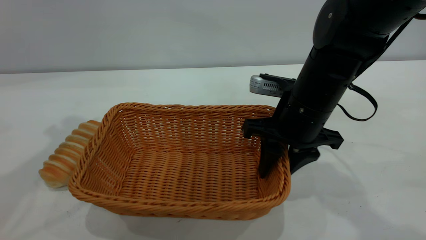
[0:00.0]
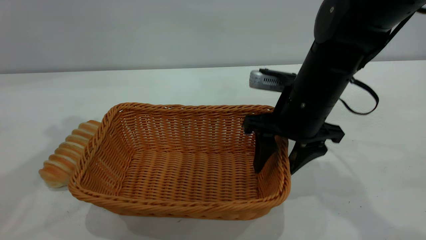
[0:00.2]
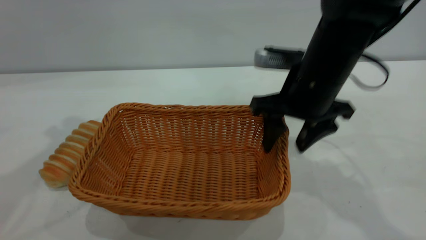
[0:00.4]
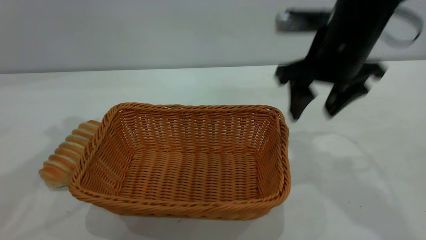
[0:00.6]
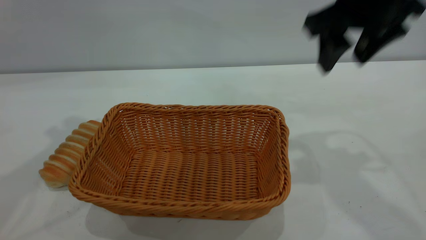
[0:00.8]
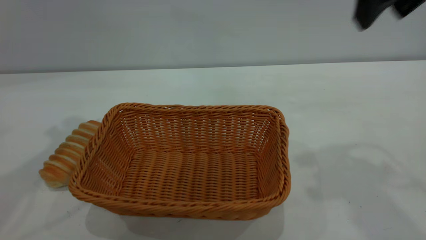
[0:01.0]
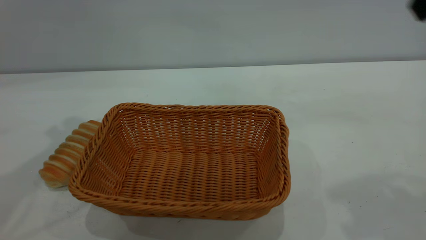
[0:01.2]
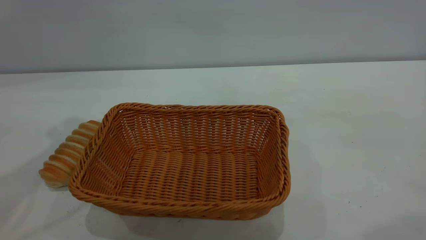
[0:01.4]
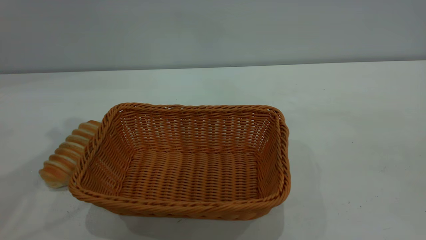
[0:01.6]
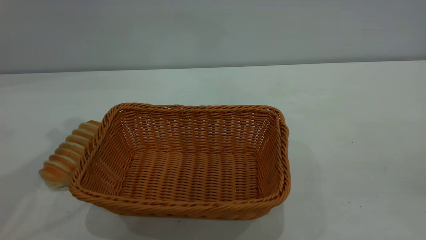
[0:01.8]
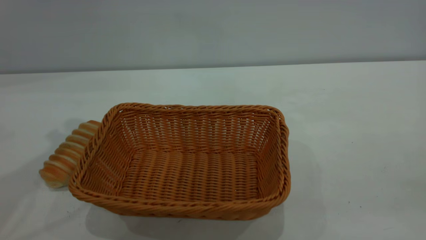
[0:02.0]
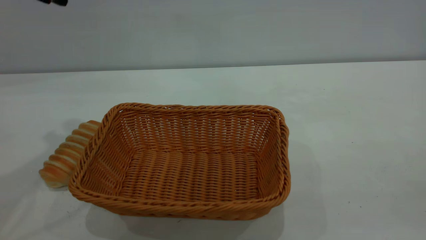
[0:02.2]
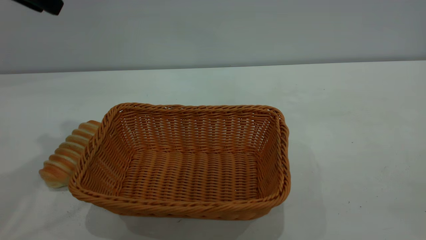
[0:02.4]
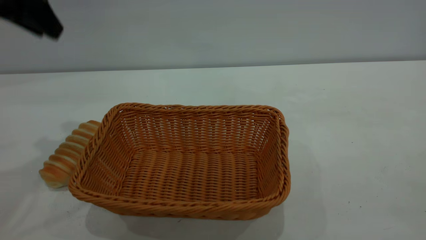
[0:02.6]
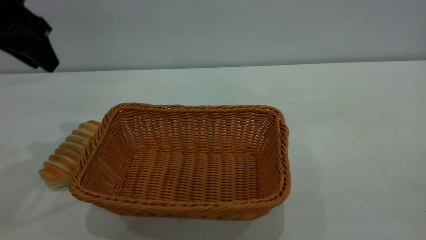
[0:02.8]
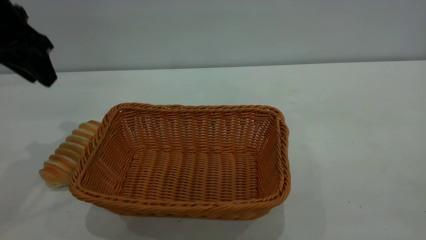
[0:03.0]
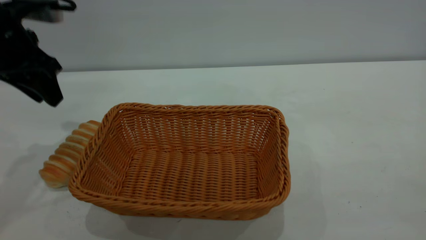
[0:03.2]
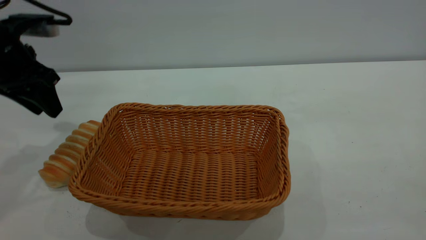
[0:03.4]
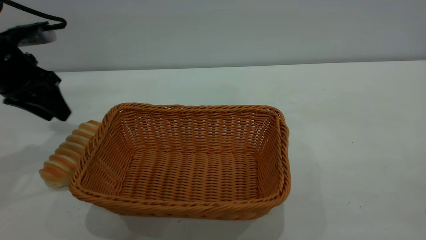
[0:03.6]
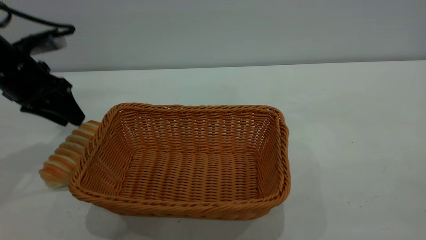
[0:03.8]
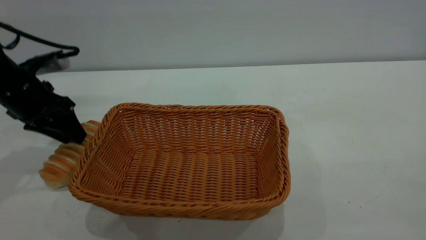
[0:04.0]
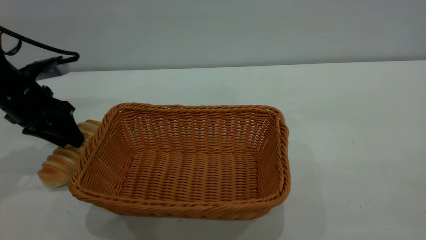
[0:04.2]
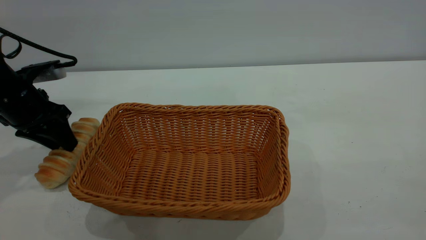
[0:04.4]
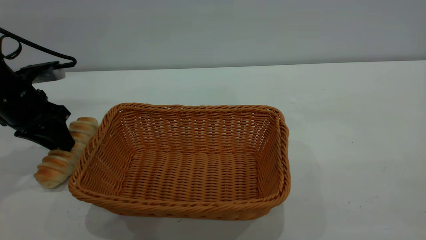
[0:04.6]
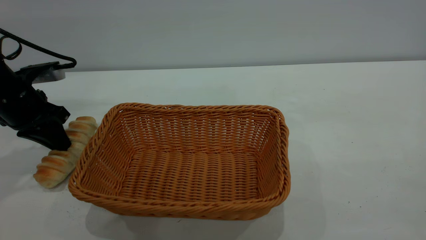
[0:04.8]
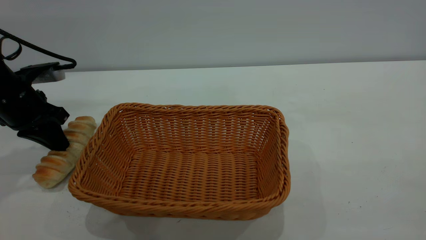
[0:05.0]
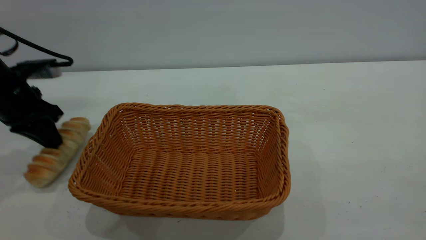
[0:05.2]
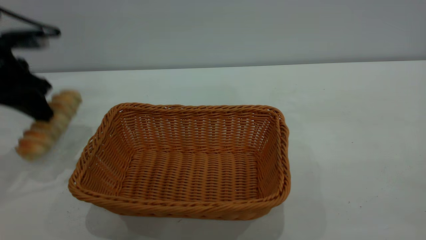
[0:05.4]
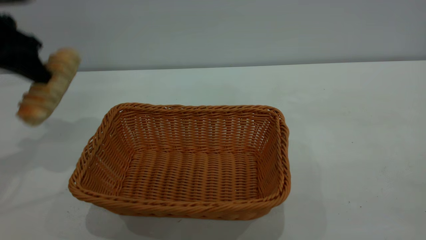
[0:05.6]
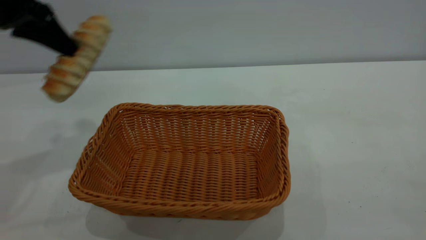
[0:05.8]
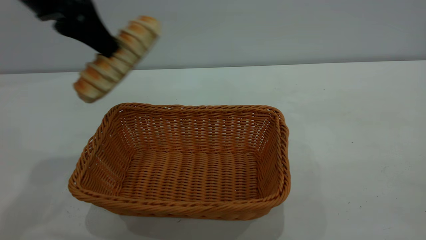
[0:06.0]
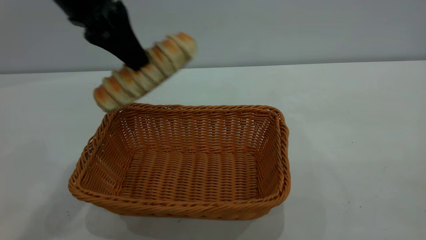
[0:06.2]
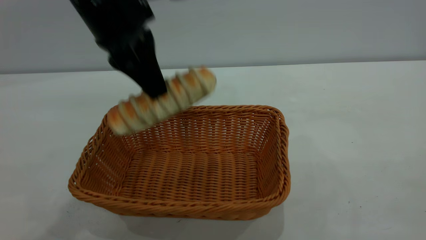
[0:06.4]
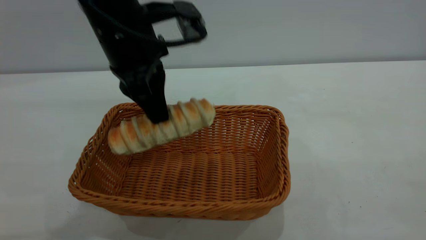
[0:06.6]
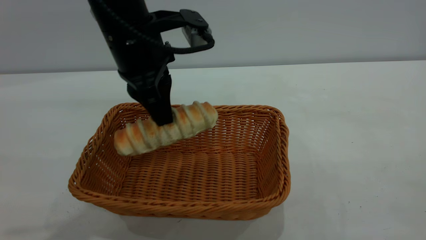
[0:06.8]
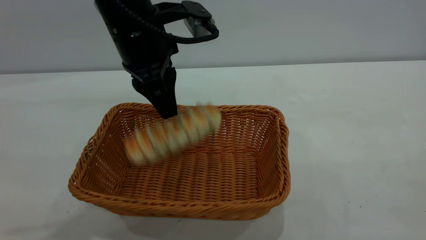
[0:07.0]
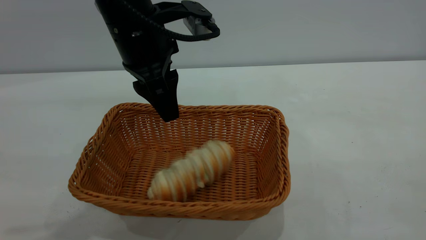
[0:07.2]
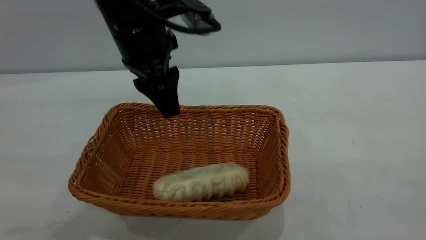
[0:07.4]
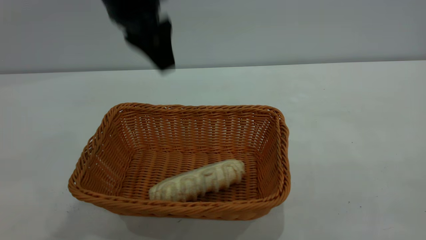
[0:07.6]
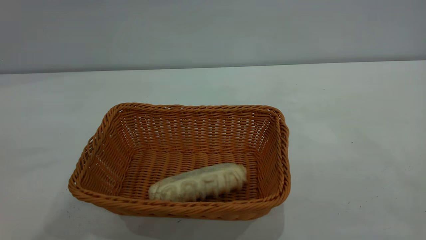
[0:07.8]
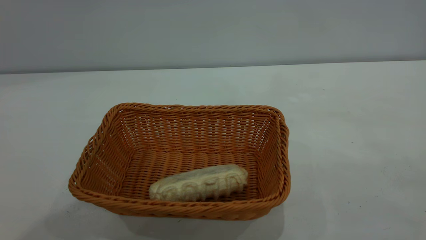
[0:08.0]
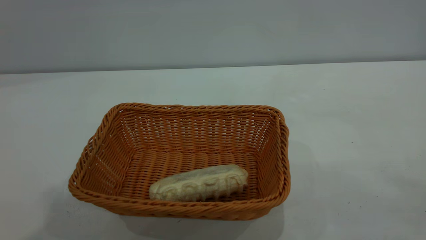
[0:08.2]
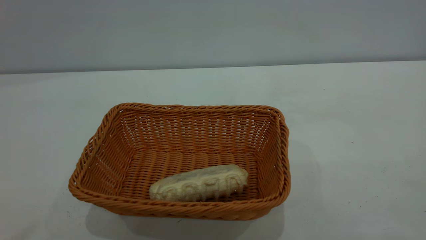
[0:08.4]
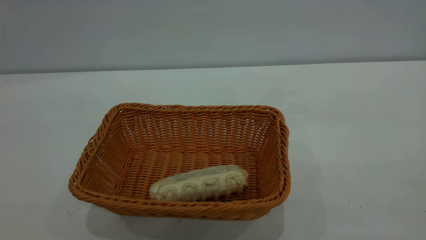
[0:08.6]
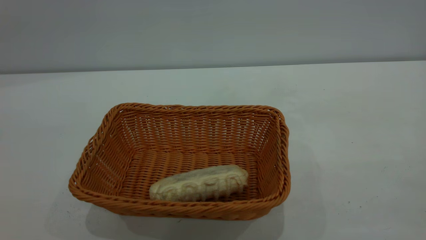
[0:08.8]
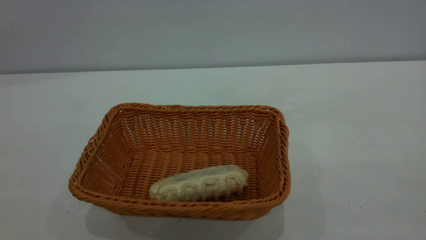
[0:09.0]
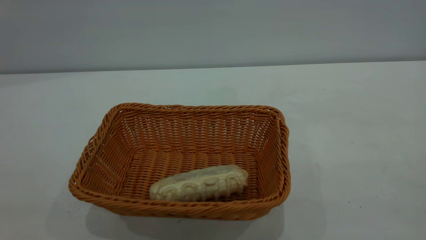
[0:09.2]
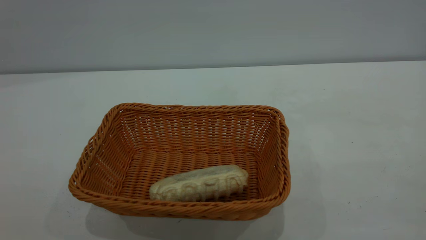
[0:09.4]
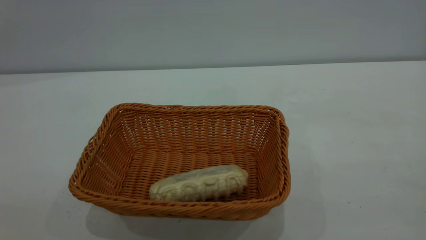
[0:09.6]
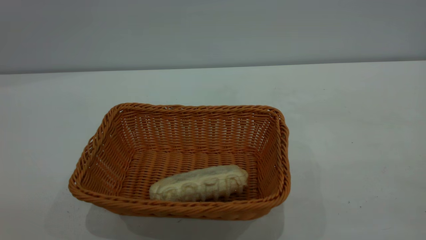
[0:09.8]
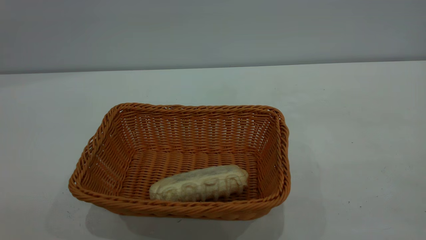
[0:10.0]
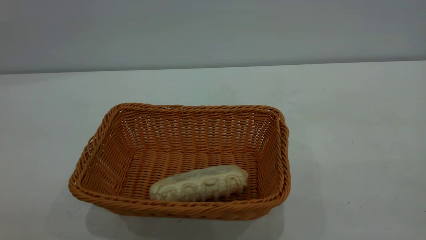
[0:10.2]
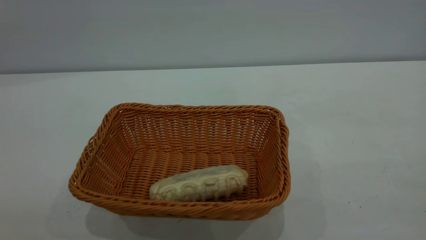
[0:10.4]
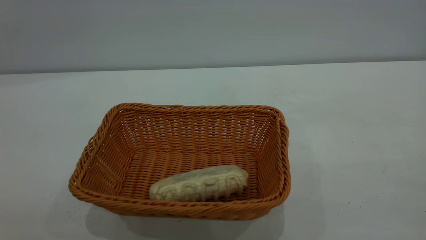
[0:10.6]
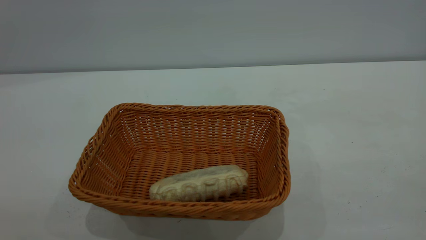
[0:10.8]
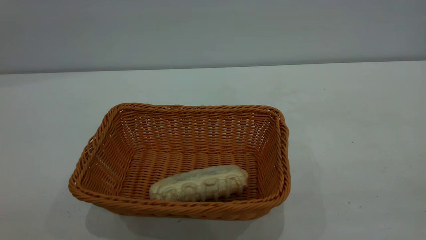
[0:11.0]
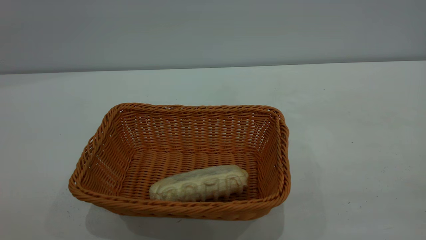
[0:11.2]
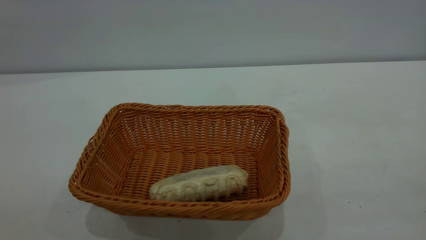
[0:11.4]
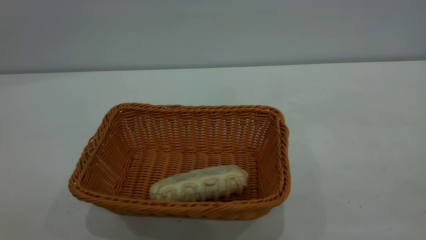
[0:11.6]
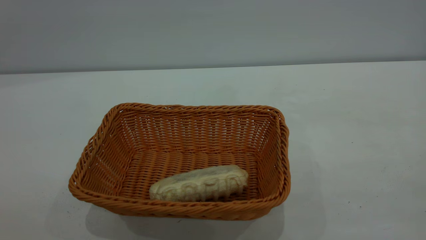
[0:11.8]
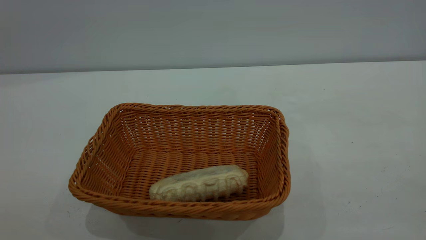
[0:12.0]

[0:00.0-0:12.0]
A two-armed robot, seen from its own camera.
Task of the whole recording: One hand grasps the yellow basket and places it in the middle of the table, while the other hand picks up the long bread and puts it into the yellow basket.
Step, 0:05.8 to 0:07.4: place the bread into the basket.
0:00.0 to 0:01.6: The right gripper travels backward, upward and to the right by roughly 35 cm.
0:01.6 to 0:03.0: The left gripper heads downward, covering approximately 10 cm.
0:03.0 to 0:04.4: The left gripper heads downward, covering approximately 15 cm.
0:04.4 to 0:06.0: The left gripper shifts some 20 cm upward and to the right, and closes up.
0:06.0 to 0:07.6: The left gripper shifts some 10 cm to the right, and opens.
0:07.6 to 0:09.0: The left gripper shifts roughly 50 cm backward, to the left and upward.

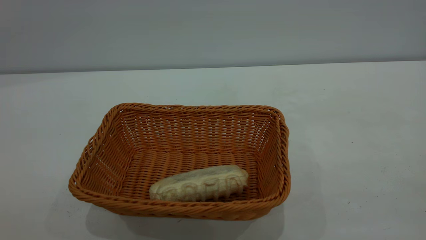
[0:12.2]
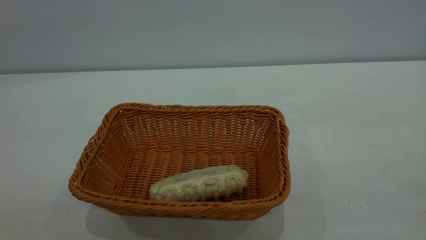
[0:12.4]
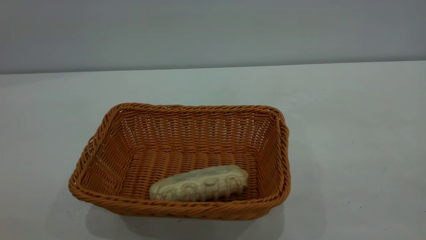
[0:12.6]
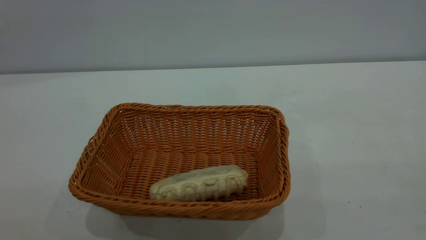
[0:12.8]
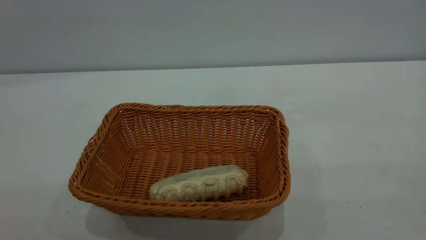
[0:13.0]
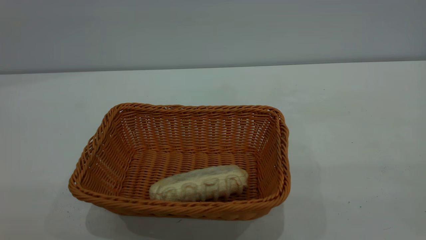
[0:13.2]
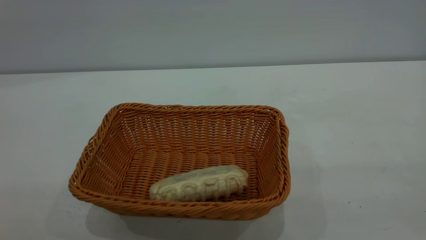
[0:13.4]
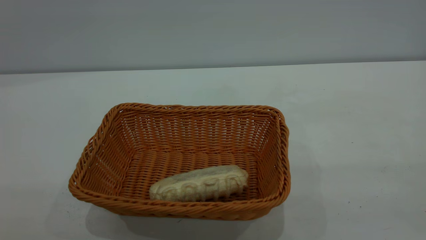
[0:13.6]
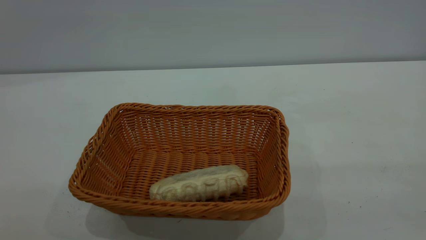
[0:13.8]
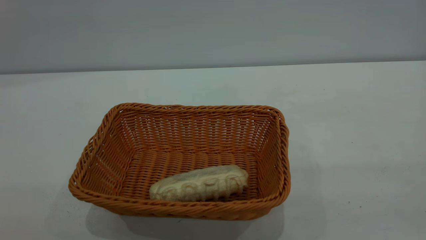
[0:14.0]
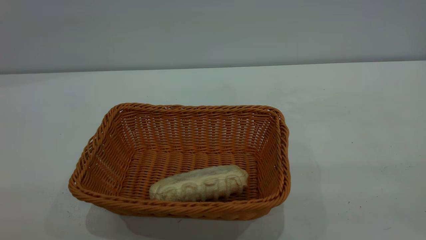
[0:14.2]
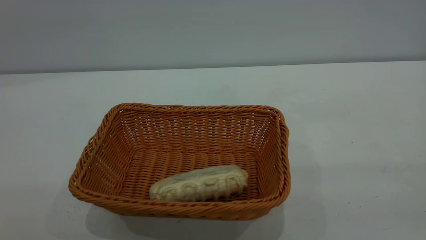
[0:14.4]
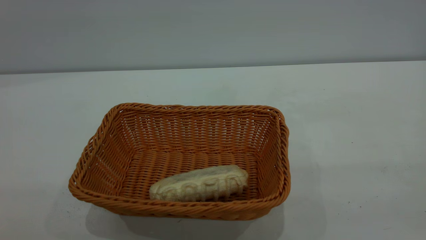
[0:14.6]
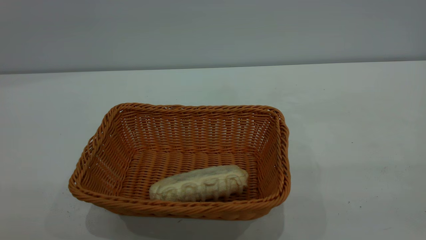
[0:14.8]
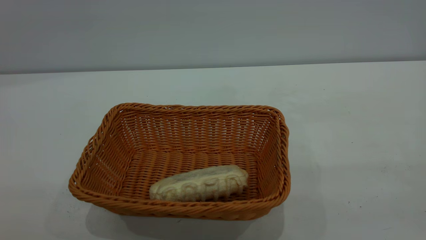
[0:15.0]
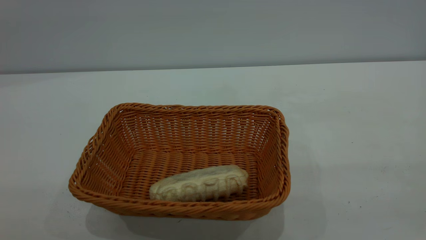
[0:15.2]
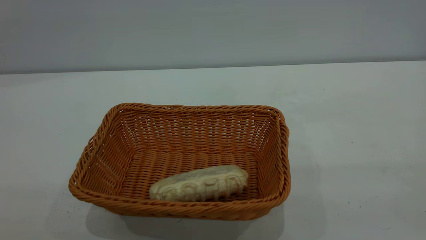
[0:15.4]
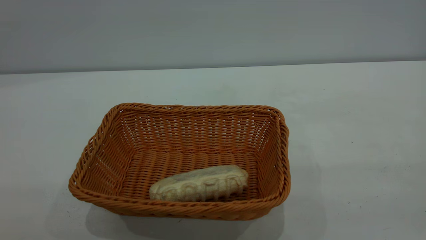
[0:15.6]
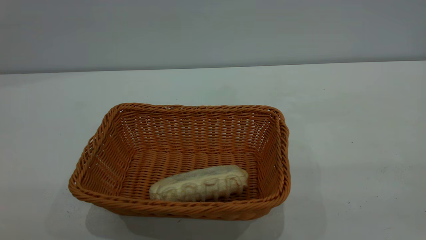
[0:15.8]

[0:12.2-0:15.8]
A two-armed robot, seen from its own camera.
Task of the whole recording: One hand grasps the yellow basket and places it in the middle of the table, while the other hand picks up the long bread and puts it into the yellow basket.
0:14.0 to 0:15.8: The two grippers keep their place.
